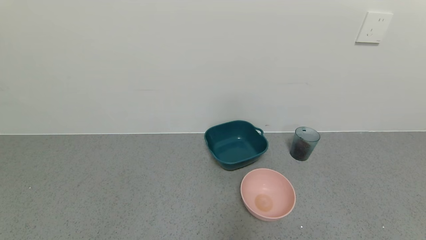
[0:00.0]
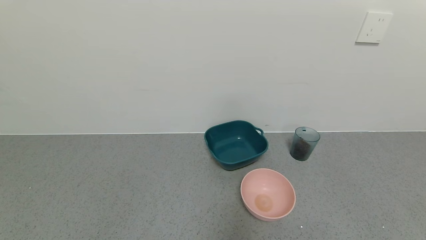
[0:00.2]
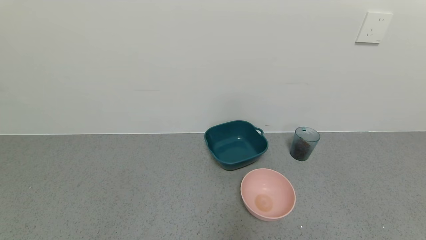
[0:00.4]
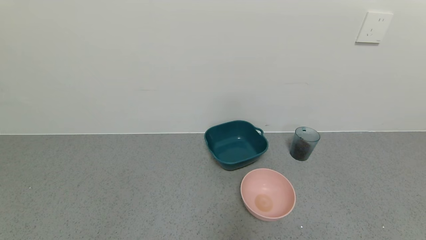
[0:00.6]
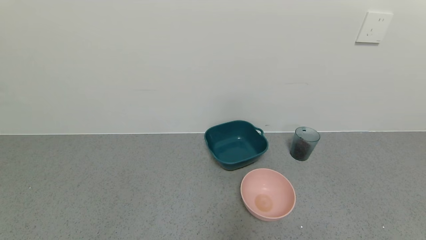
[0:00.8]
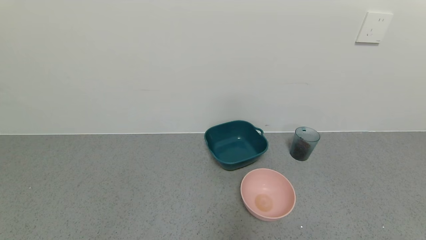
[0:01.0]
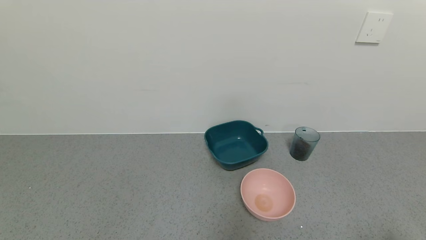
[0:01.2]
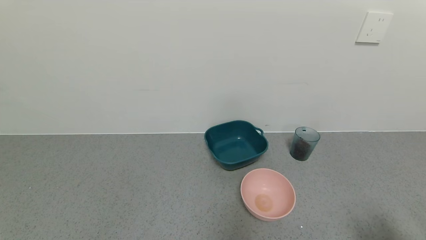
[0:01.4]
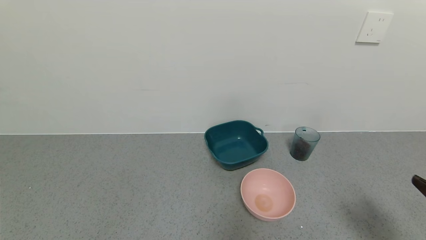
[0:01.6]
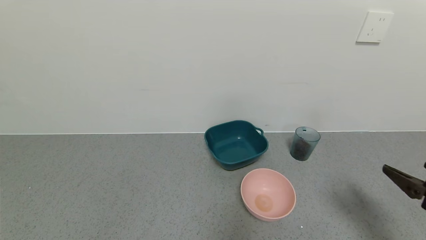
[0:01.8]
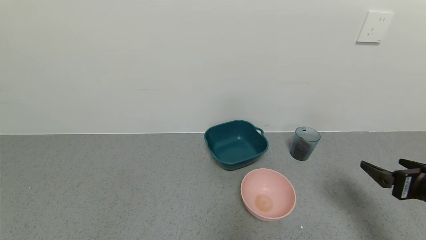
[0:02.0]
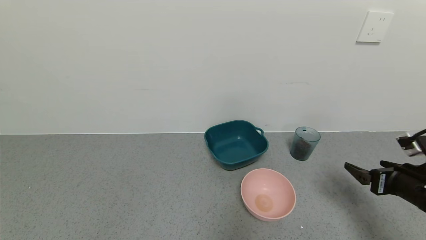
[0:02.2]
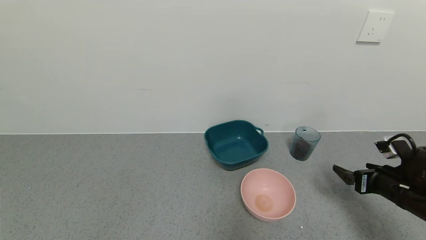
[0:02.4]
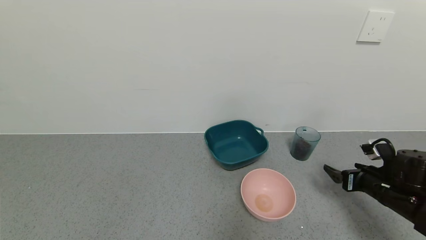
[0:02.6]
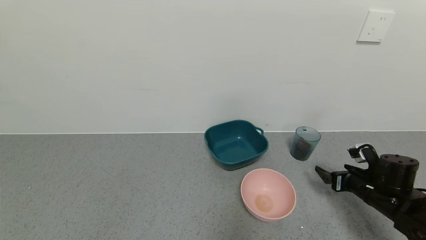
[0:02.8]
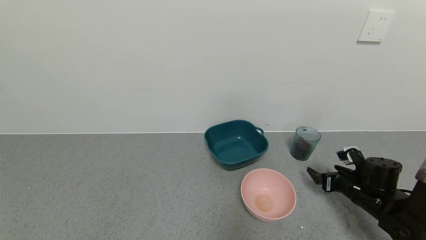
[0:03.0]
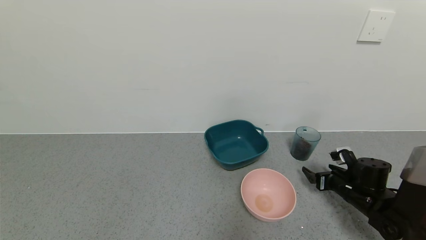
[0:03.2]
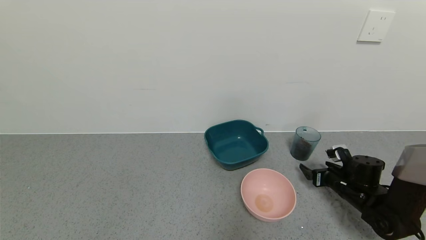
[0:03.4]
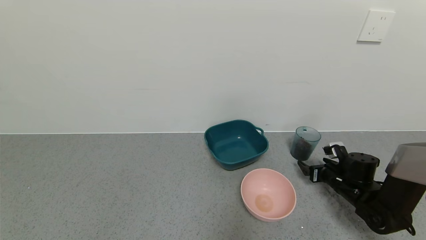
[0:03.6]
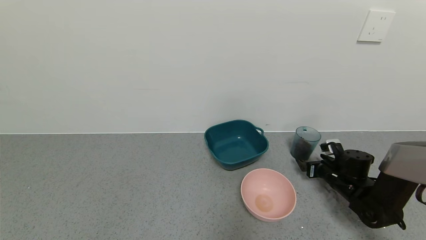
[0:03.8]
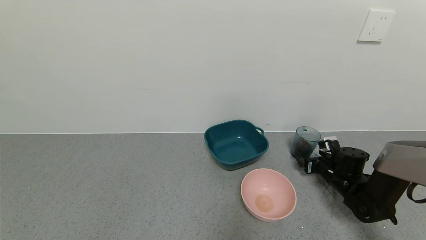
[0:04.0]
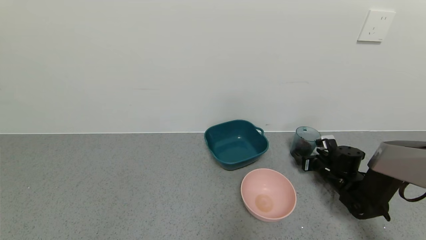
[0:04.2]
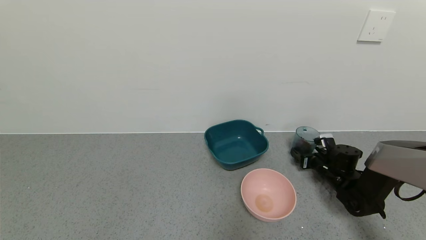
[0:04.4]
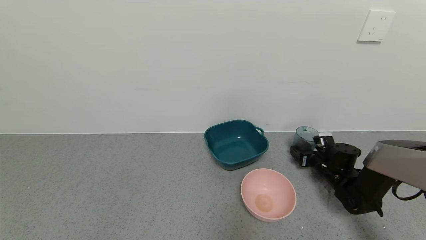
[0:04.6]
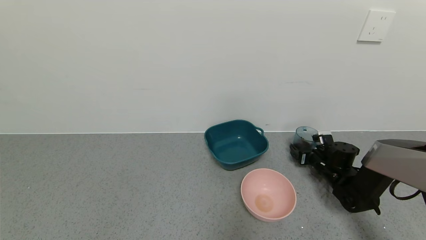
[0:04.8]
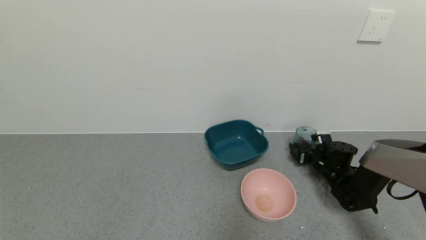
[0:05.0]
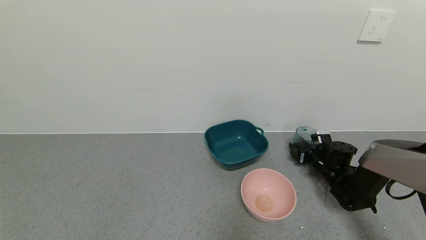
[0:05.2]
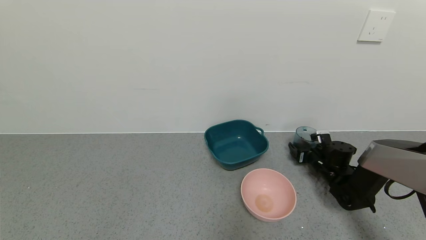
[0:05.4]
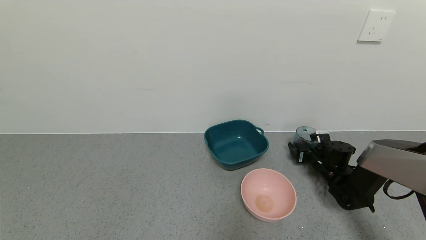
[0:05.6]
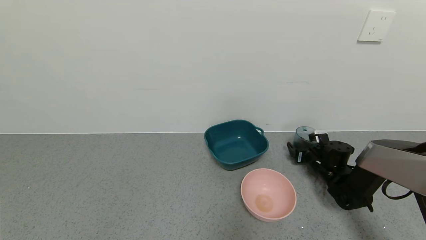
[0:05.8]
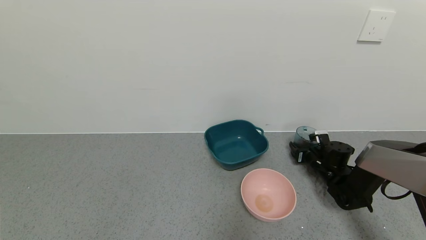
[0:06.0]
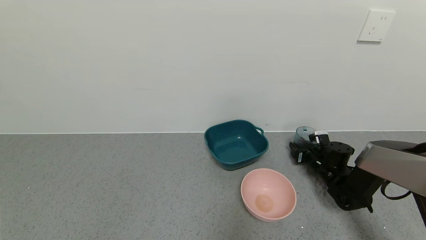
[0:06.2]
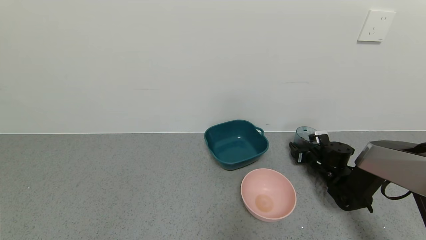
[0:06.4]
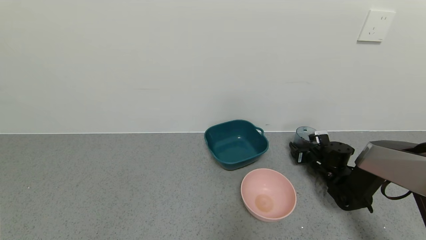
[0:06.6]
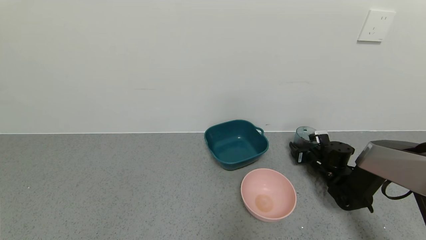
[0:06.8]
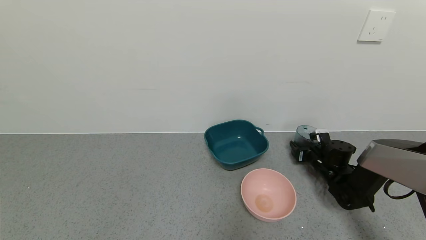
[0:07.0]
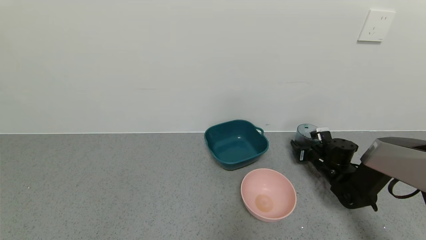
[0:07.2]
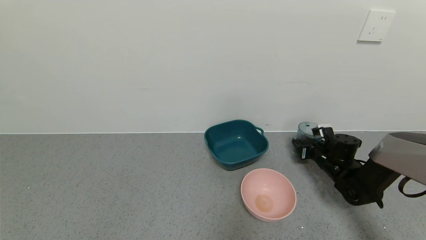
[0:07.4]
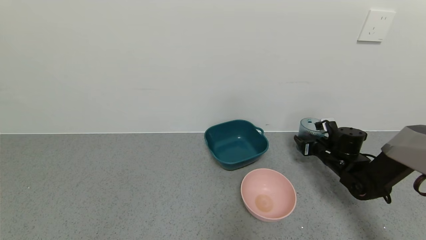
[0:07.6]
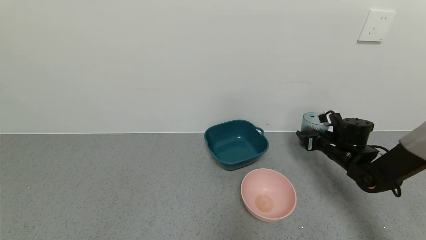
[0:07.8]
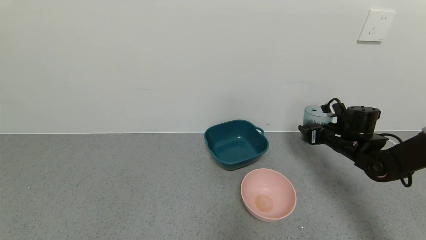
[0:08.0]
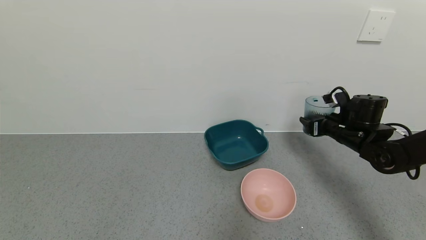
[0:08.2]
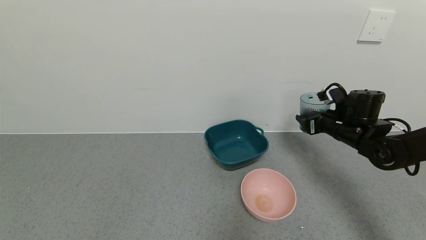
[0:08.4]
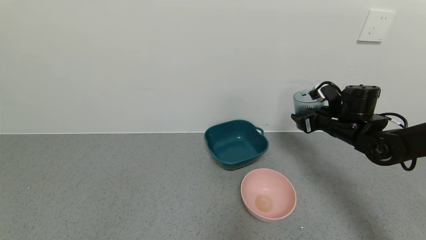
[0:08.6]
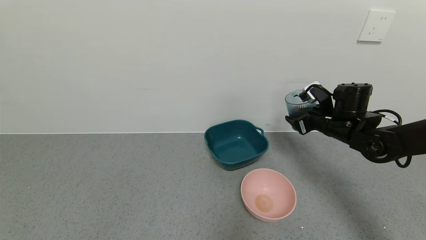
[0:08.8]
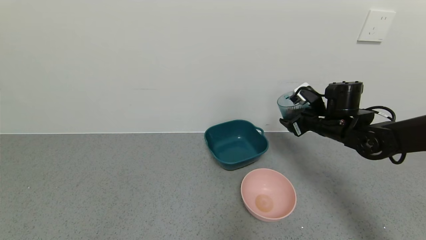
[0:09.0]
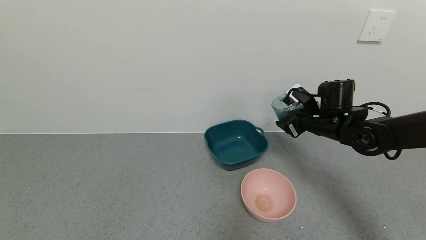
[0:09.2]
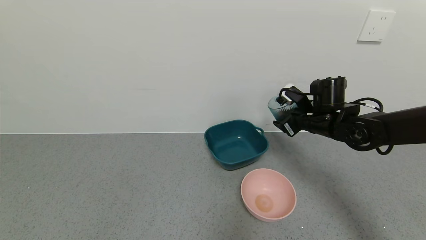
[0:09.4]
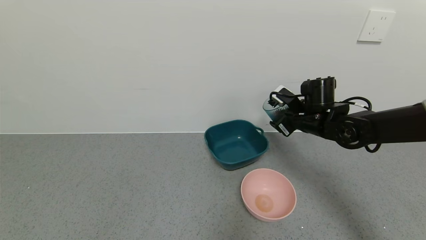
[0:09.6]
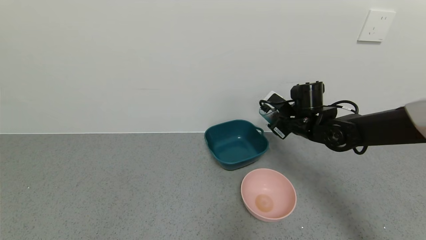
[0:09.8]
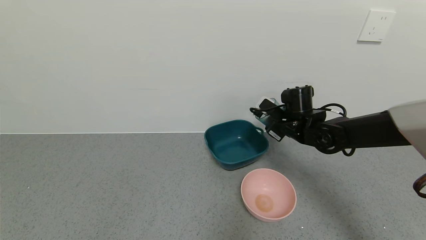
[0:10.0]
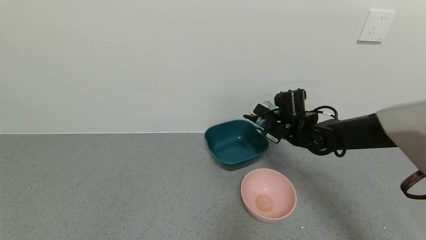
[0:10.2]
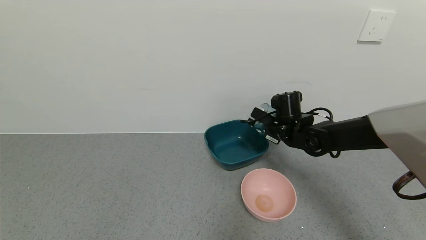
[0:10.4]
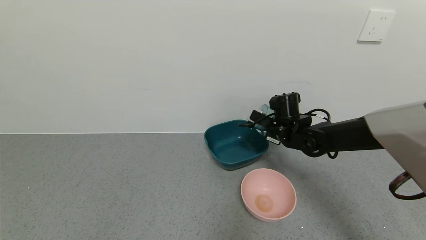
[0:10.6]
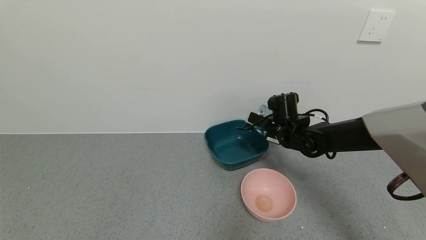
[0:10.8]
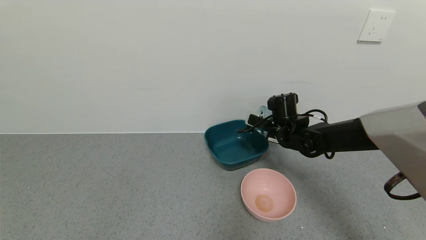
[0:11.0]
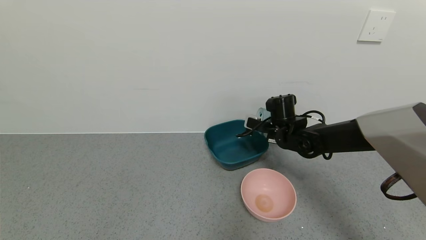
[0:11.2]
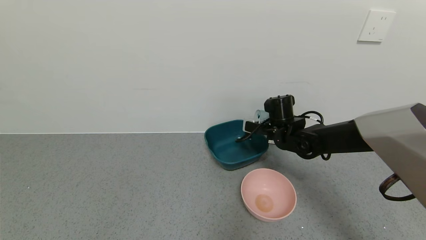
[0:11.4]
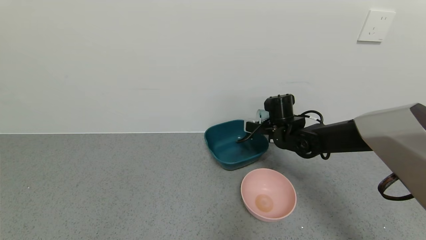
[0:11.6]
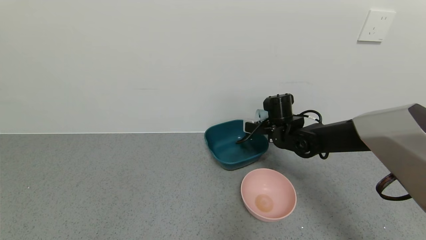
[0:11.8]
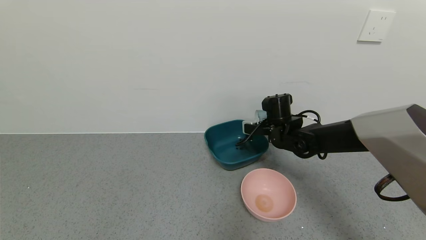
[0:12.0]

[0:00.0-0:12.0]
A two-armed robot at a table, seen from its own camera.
Task of the whole recording: use a gripper to pick up the cup and pour the solid into a bowl or tray.
Step, 0:00.0 to 0:06.8: Grasp the glass of coffee beans with the right gripper.
0:00.0 to 0:01.6: The right gripper shifts about 15 cm upward and forward.
0:01.6 to 0:03.0: The right gripper travels forward and downward by about 25 cm.
0:03.0 to 0:04.4: The right gripper is displaced forward by some 10 cm.
0:04.4 to 0:06.0: The right gripper closes up.
0:06.0 to 0:07.6: The right gripper shifts approximately 5 cm upward.
0:07.6 to 0:09.0: The right gripper heads upward and to the left, covering about 15 cm.
0:09.0 to 0:10.4: The right gripper heads to the left, covering some 10 cm.

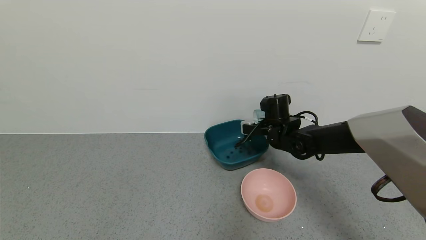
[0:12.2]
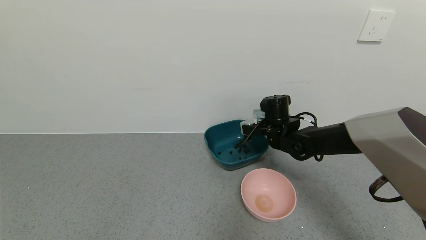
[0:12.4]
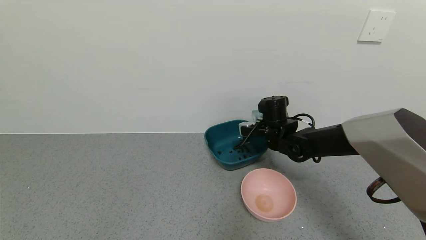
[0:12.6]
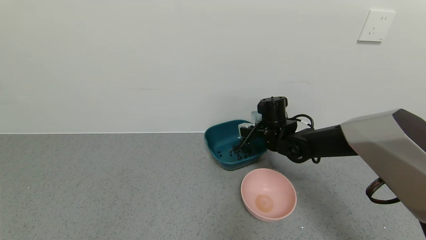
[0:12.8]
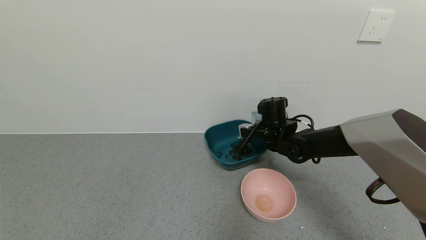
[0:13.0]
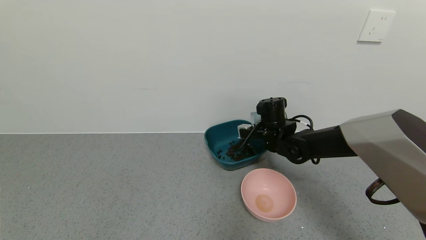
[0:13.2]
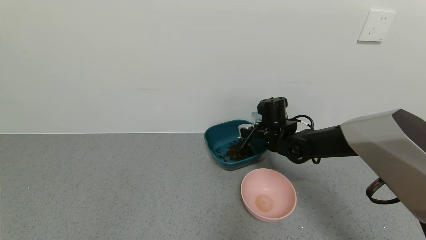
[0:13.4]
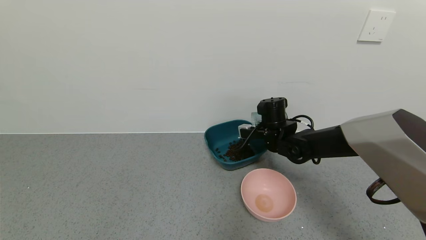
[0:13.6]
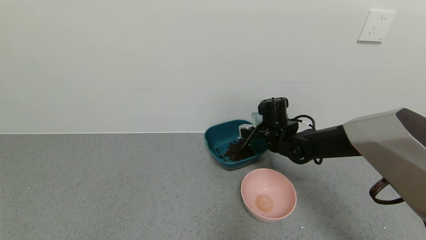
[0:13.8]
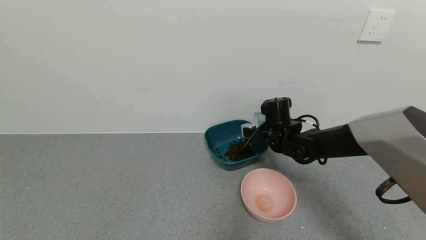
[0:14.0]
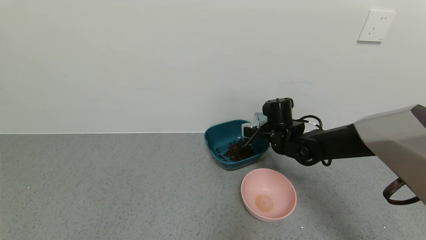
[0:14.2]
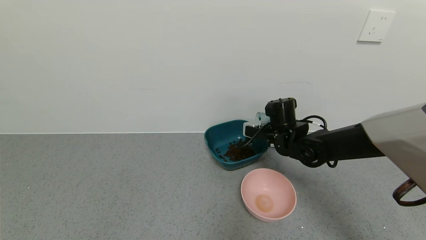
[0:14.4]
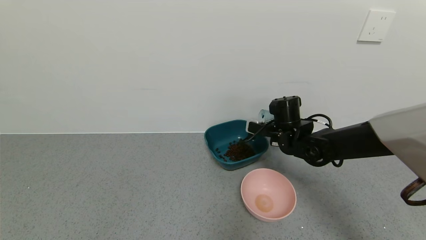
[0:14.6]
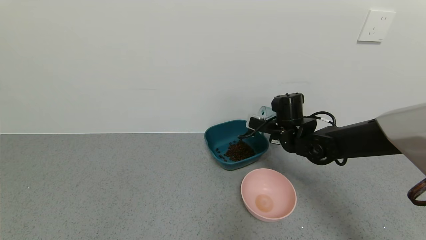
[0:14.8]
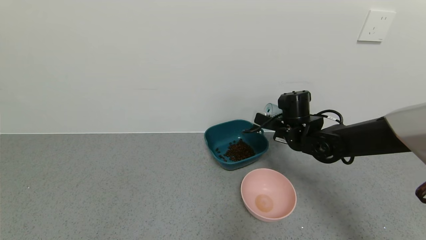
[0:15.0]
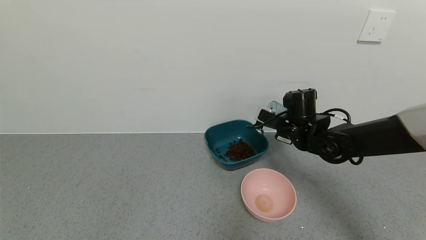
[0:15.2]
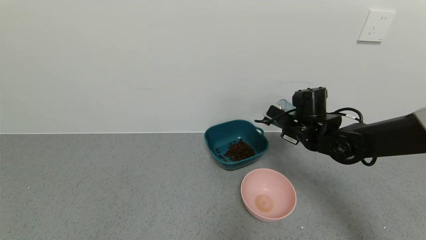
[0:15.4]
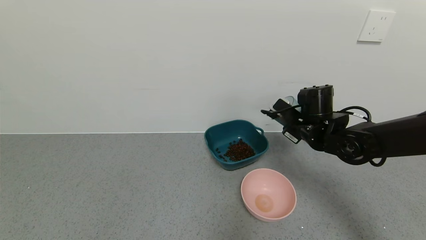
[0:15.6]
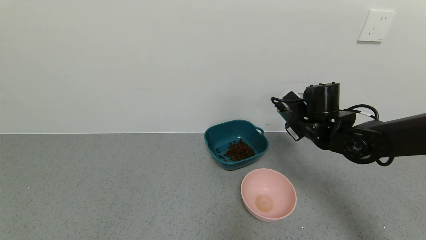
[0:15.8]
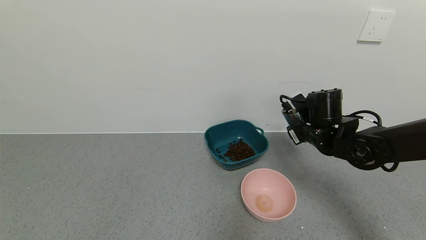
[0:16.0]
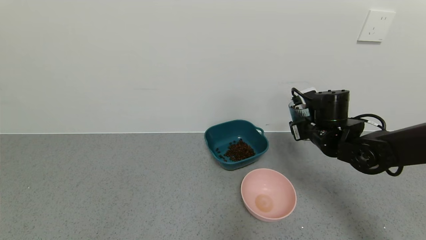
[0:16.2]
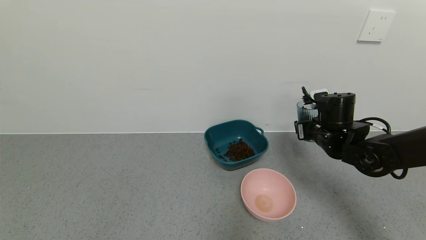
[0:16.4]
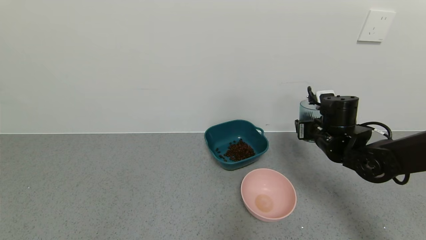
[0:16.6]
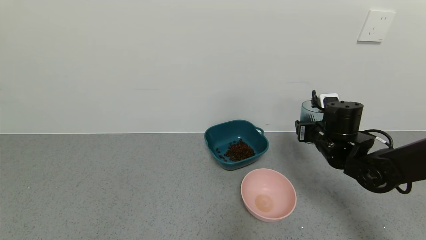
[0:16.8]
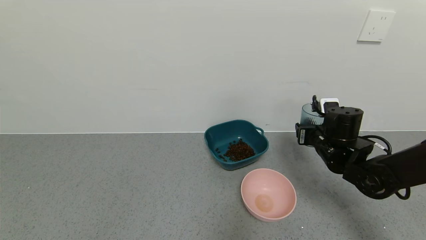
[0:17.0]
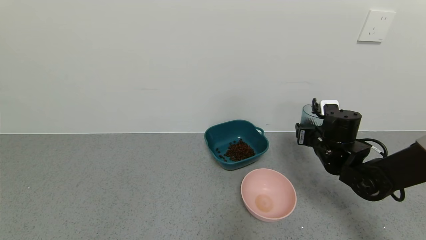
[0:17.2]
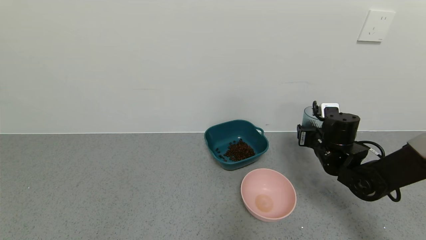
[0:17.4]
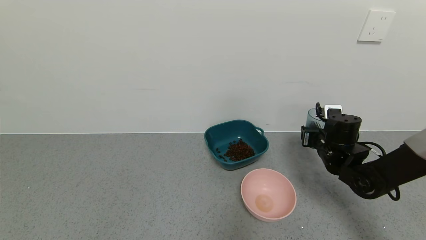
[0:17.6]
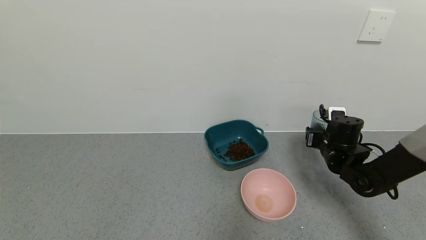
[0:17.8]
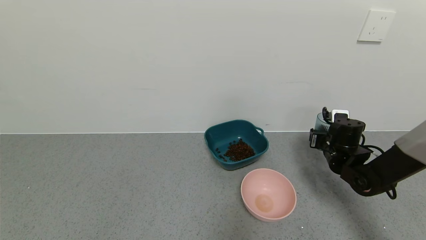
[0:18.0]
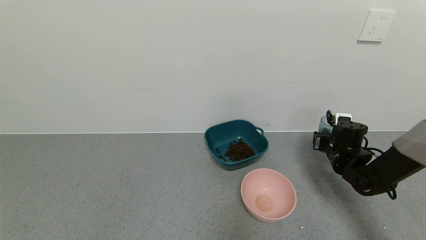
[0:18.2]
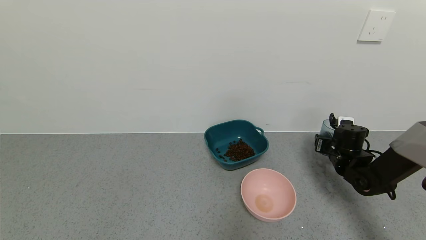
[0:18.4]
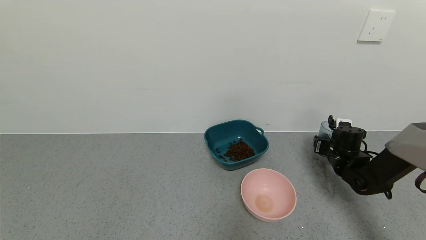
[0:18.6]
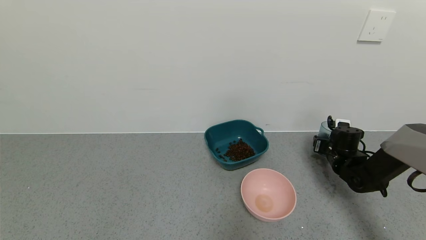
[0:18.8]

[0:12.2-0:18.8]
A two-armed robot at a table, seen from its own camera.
Task of the whole recording: use a gripper to pick up the cup and pour the solid into a bowl or tray.
Step, 0:12.2 to 0:15.6: Pour the coffee beans into the green bowl with the right gripper.
0:12.2 to 0:13.8: The grippers move only a little.
0:13.8 to 0:15.4: The right gripper goes about 5 cm to the right.
0:15.4 to 0:17.2: The right gripper ends up some 5 cm from where it was.
0:17.2 to 0:18.8: The right gripper is displaced to the right, downward and forward by roughly 15 cm.
